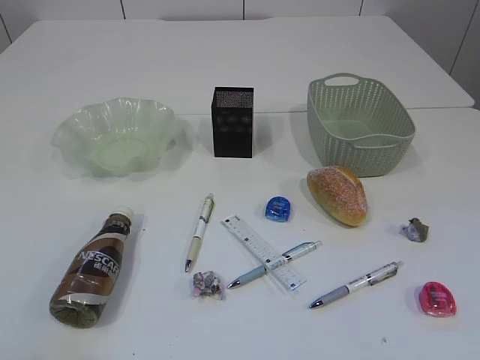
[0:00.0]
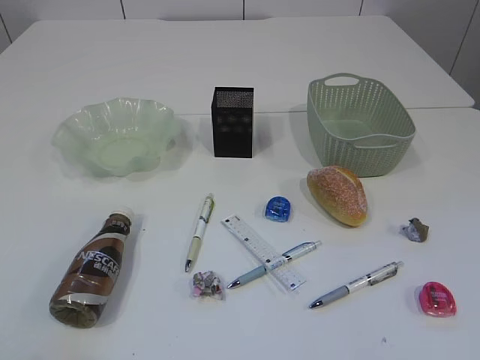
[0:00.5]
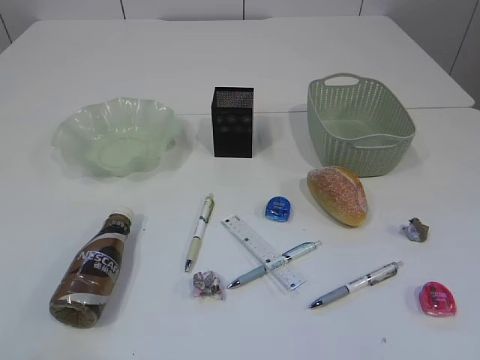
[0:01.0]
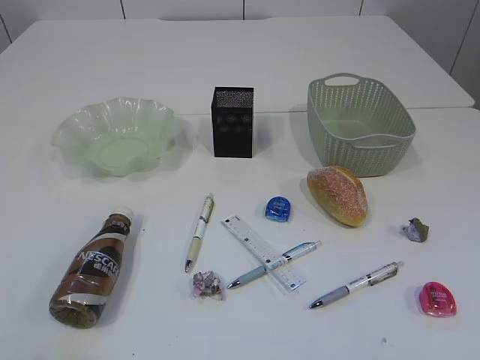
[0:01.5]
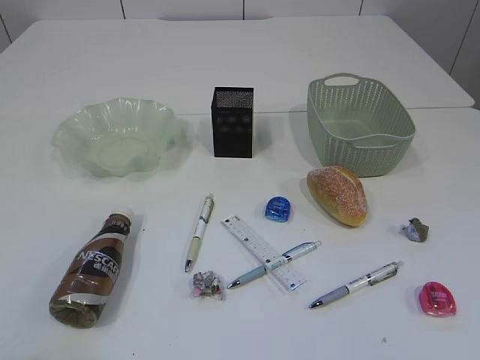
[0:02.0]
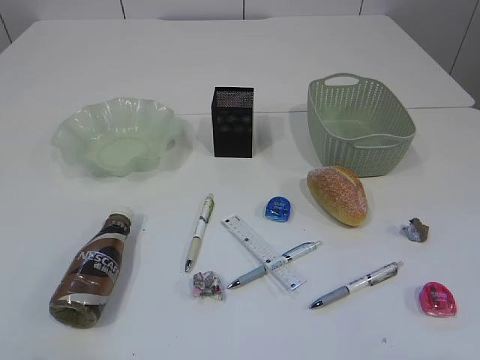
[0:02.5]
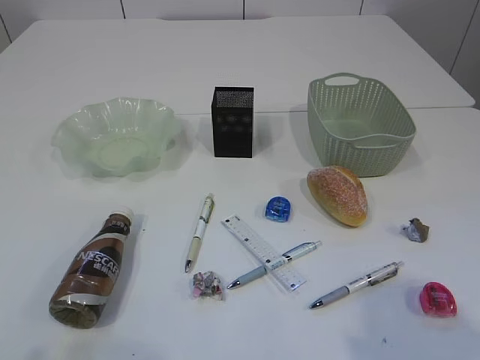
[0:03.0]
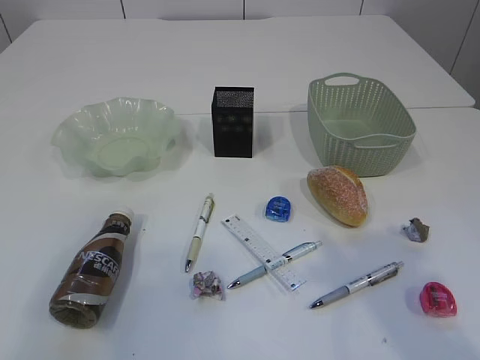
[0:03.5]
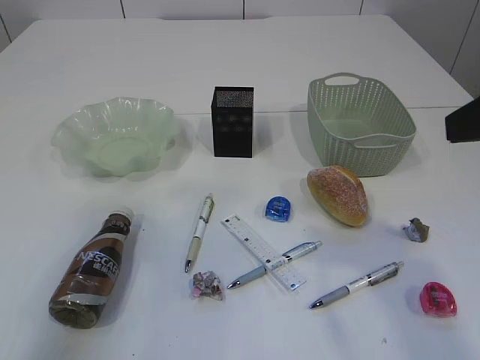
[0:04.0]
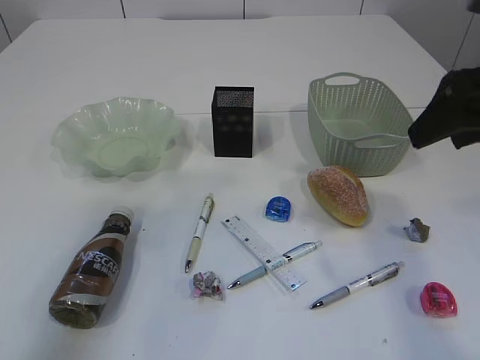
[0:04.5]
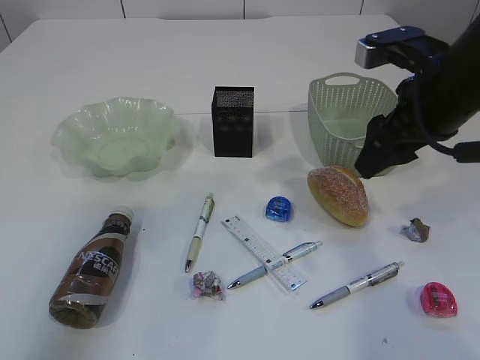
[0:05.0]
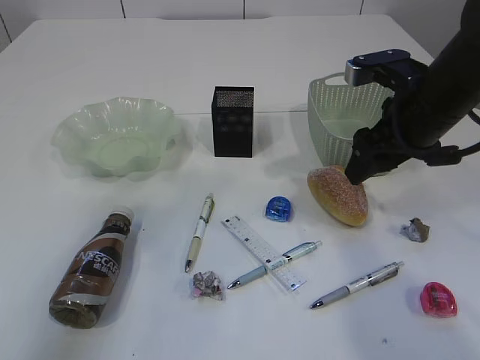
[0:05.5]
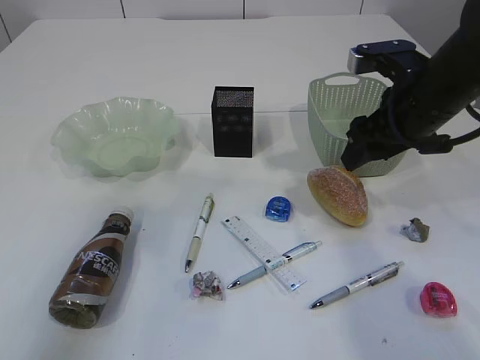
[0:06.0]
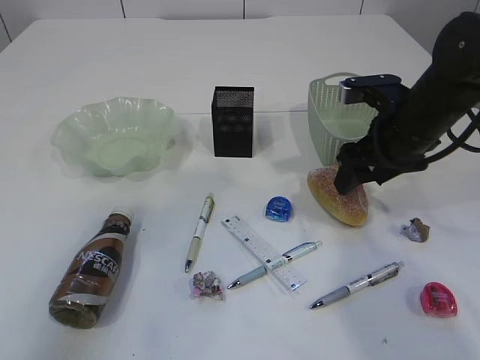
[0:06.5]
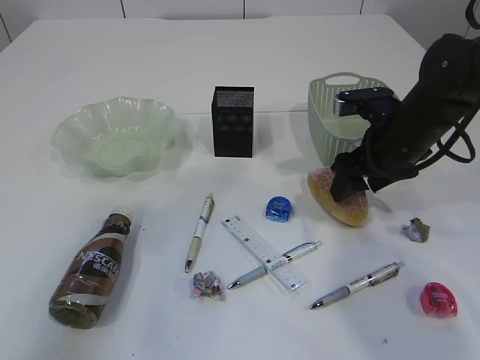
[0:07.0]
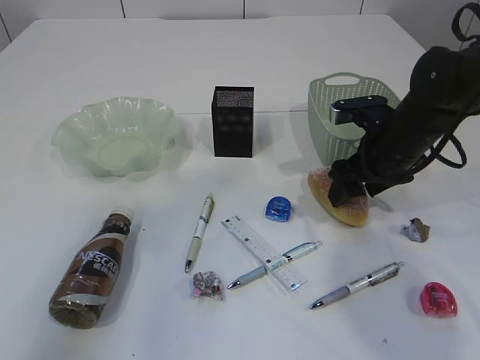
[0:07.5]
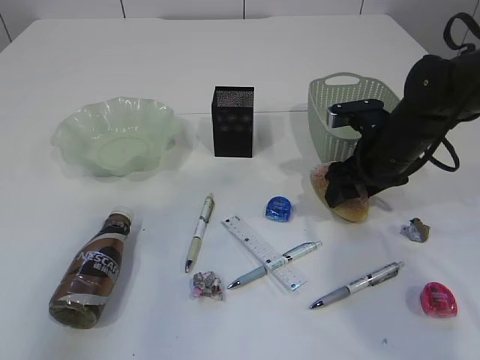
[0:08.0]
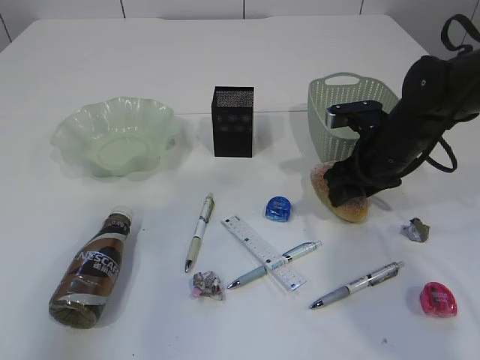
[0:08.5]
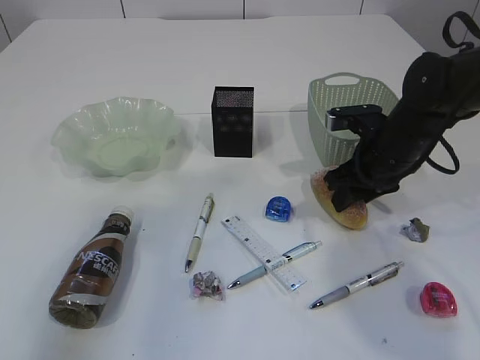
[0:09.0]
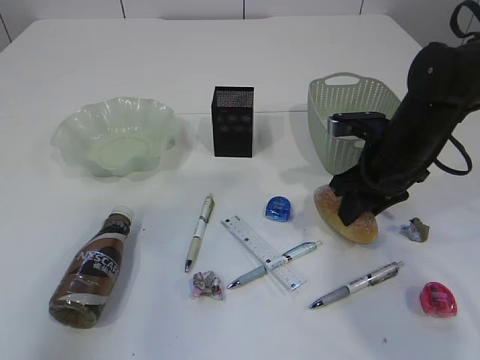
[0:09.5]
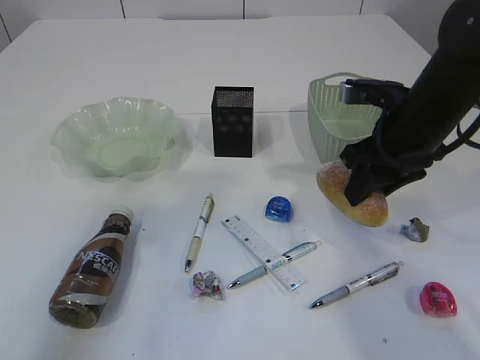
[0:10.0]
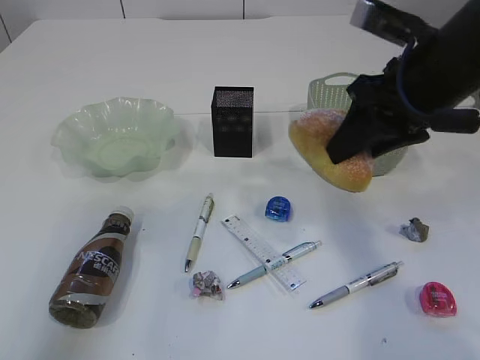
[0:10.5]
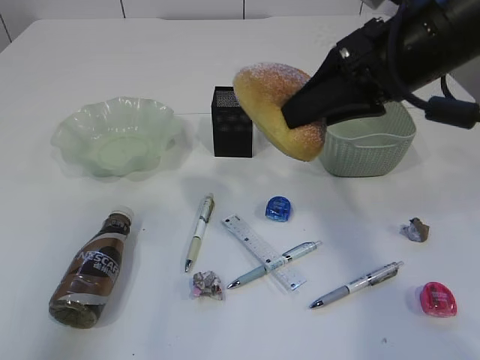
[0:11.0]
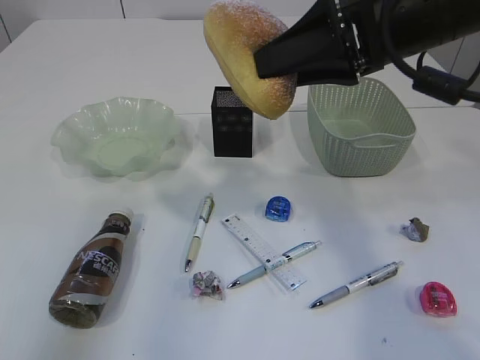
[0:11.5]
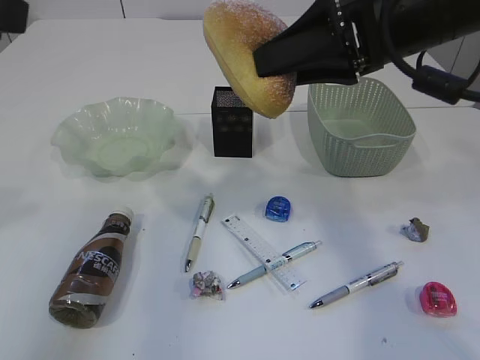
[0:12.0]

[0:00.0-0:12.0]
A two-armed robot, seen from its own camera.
0:02.0 to 0:04.0: The left gripper moves upward and forward, roughly 20 cm. Meanwhile the right gripper is displaced forward by some 20 cm.
0:04.0 to 0:06.0: The right gripper is displaced forward and downward by about 20 cm.
0:06.0 to 0:08.0: The right gripper is displaced downward by some 10 cm.
0:08.0 to 0:10.0: The right gripper is displaced upward by roughly 5 cm, and closes.
0:10.0 to 0:12.0: The left gripper changes place by approximately 5 cm; the right gripper travels upward by approximately 15 cm.

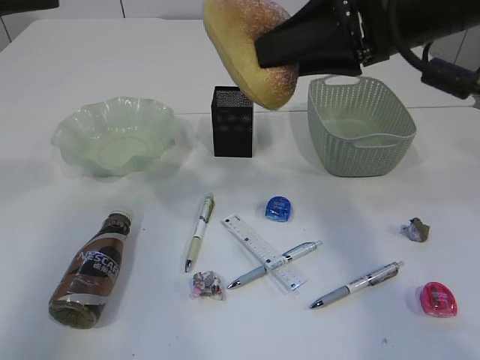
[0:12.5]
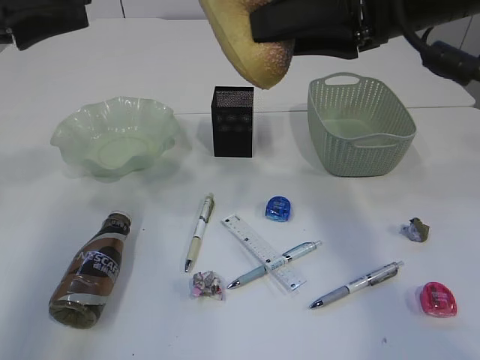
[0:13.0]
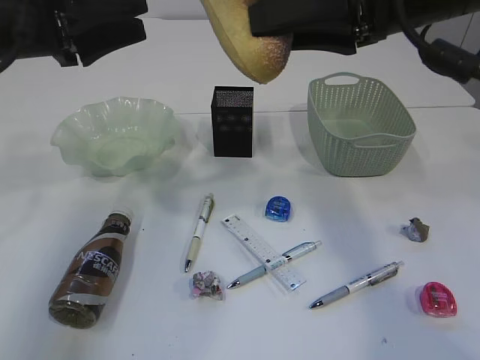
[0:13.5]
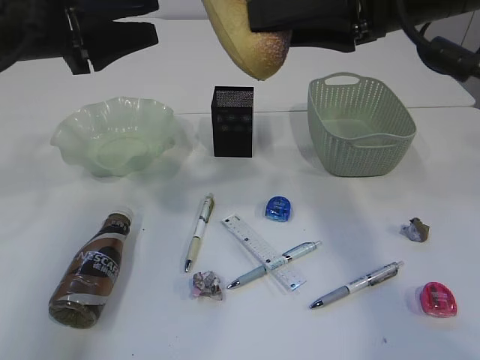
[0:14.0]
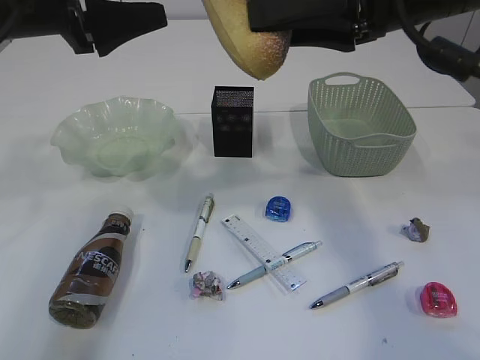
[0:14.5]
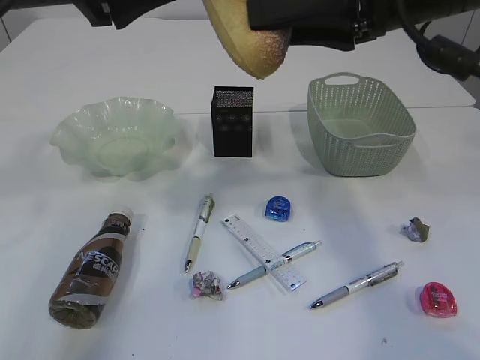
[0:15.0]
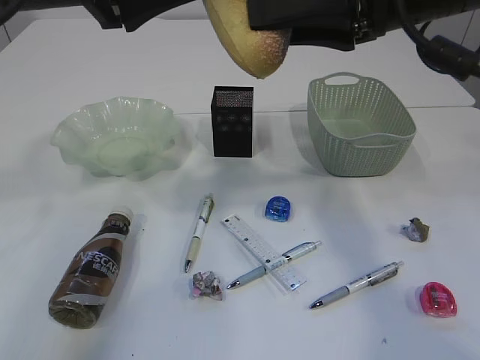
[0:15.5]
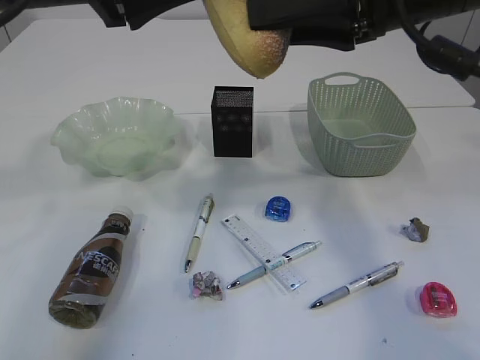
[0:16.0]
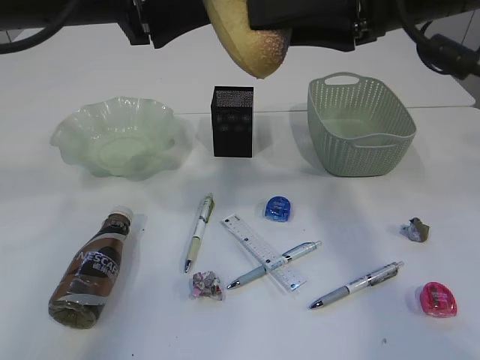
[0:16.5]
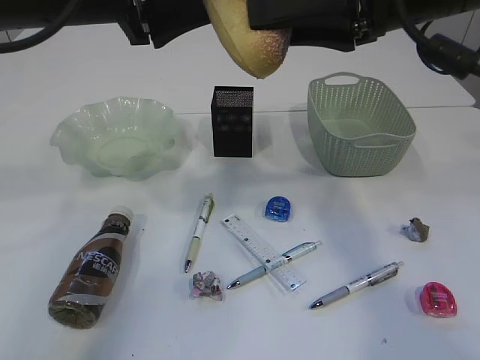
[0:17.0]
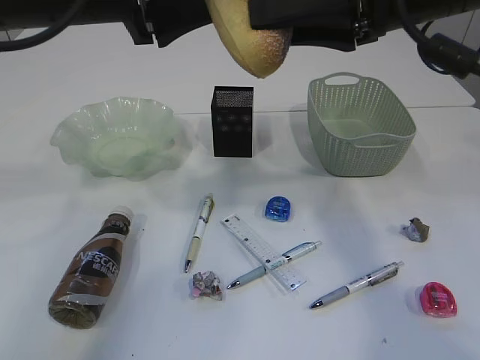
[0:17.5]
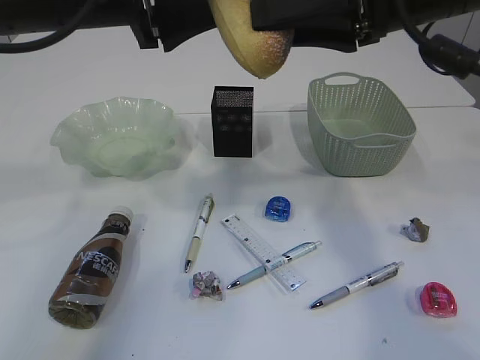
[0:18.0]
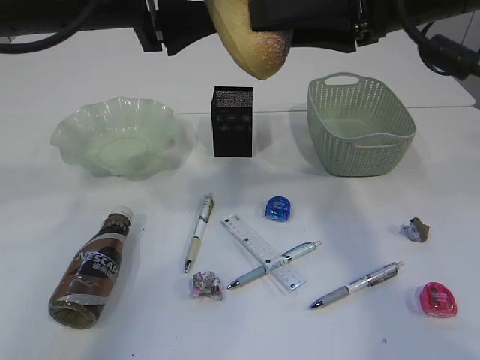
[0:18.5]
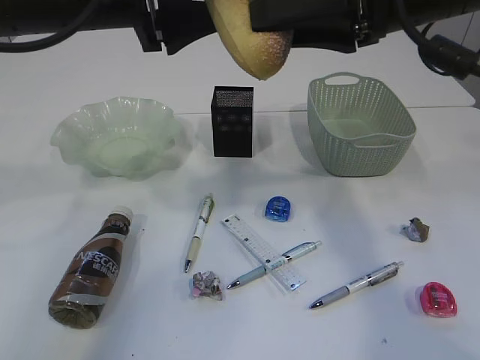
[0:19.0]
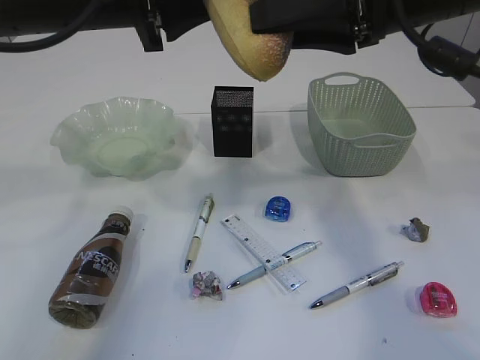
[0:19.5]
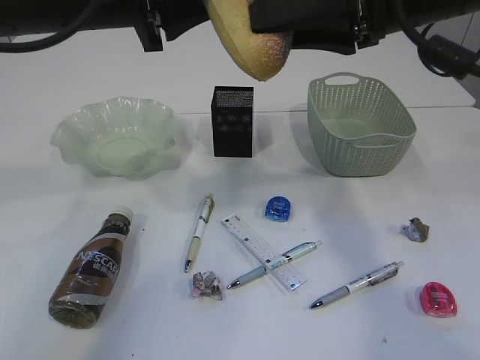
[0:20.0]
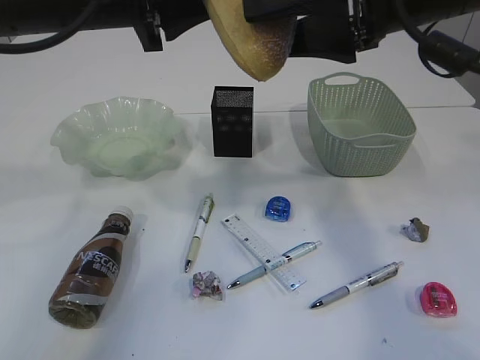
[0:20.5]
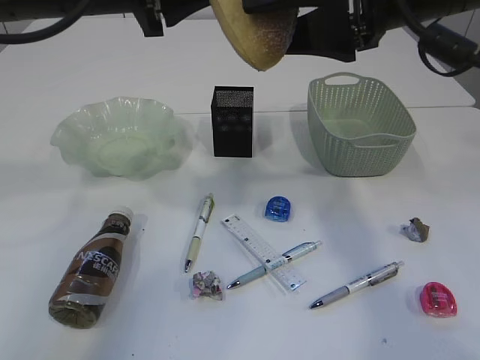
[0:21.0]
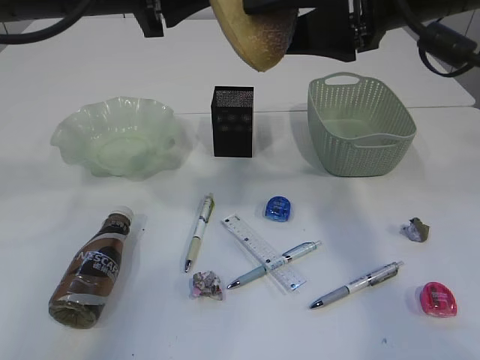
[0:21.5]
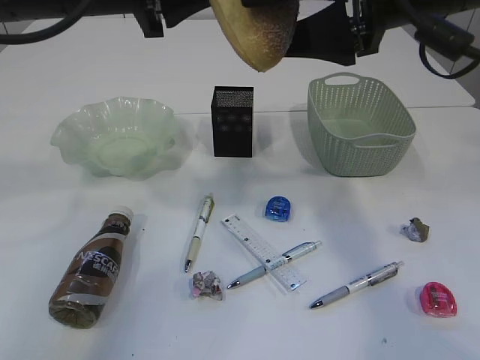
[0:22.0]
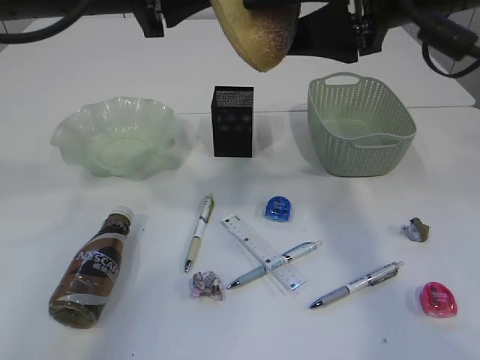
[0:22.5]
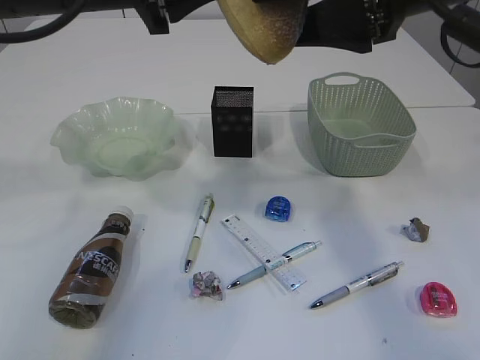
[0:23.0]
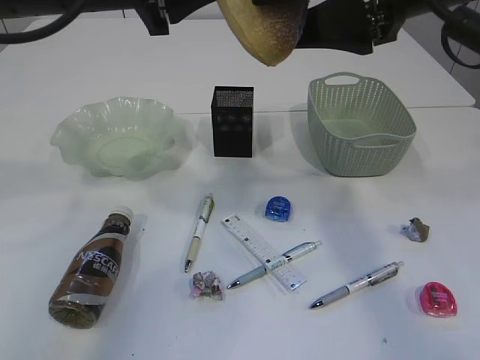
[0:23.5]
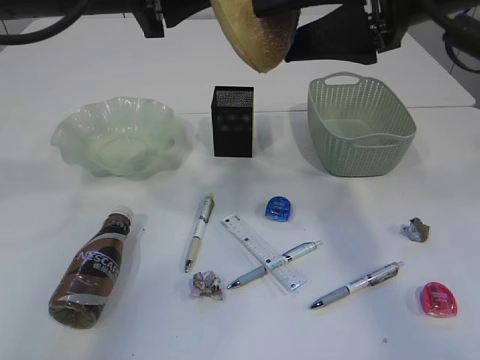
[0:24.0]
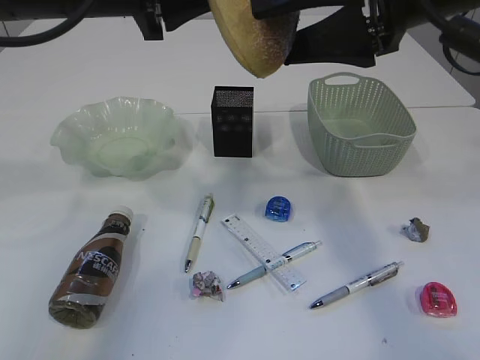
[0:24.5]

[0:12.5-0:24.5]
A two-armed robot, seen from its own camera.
0:12.5 to 0:14.5: The left gripper shifts some 5 cm to the right, and opens.
0:14.5 to 0:16.5: The left gripper heads to the right, covering roughly 5 cm.
0:16.5 to 0:18.5: Neither gripper changes place.
0:18.5 to 0:20.5: The left gripper closes up. The right gripper opens.
0:20.5 to 0:24.5: There are only small adjustments of the grippers.

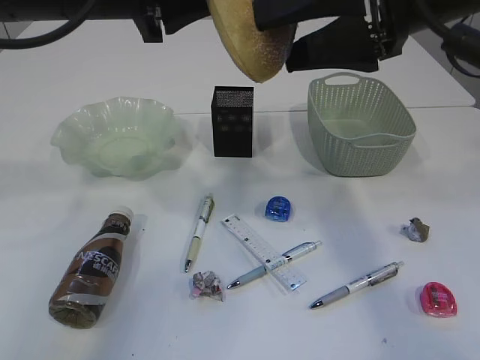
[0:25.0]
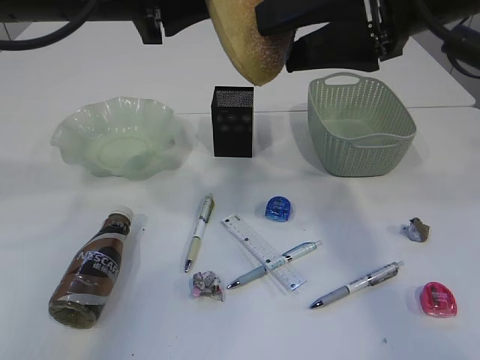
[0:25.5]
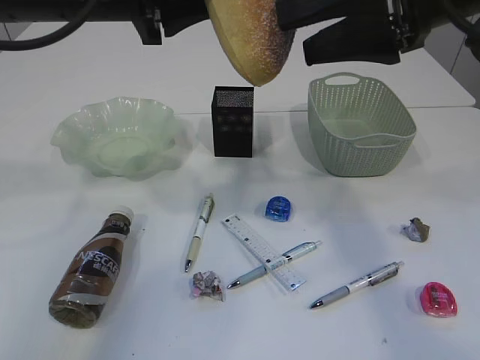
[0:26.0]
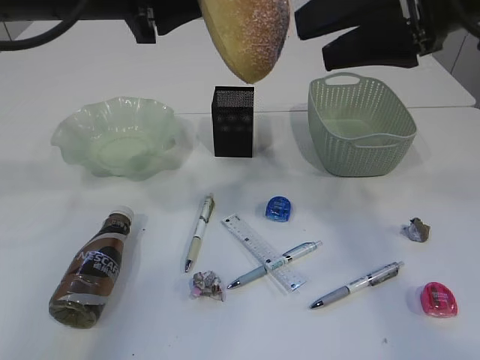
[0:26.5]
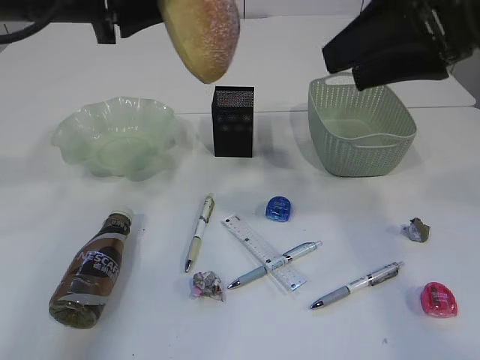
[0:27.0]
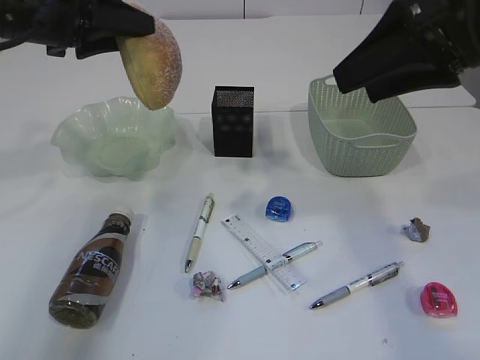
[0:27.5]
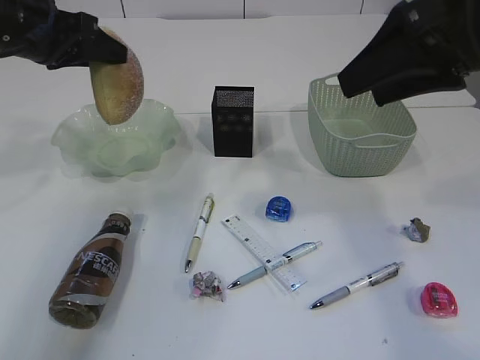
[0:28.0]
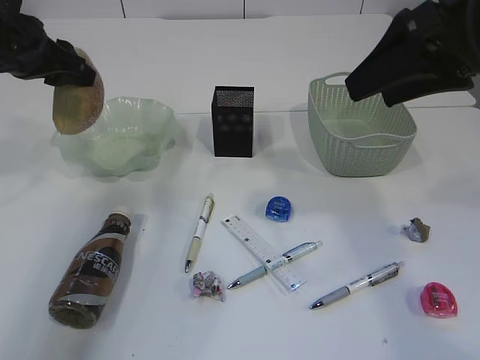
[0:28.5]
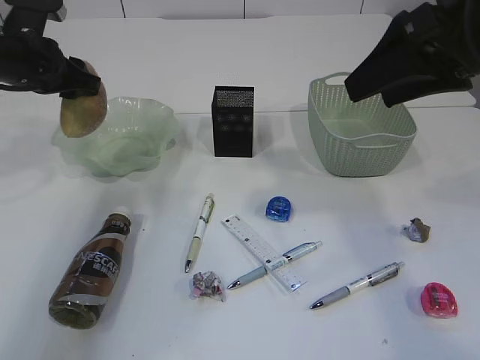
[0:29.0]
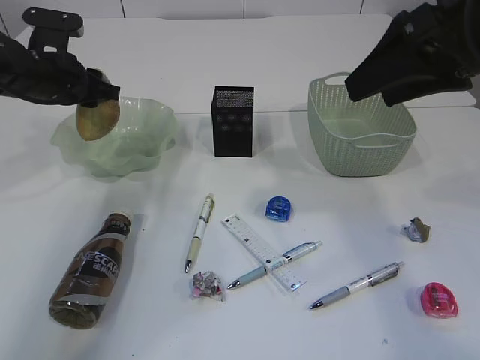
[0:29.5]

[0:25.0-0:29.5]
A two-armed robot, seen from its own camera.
0:25.0 to 0:27.0: The grippers stay close to where they were, moving slightly.
0:27.0 to 0:29.5: The left gripper moves downward, forward and to the left, roughly 15 cm.
